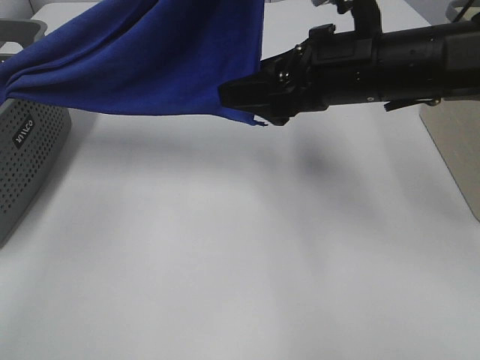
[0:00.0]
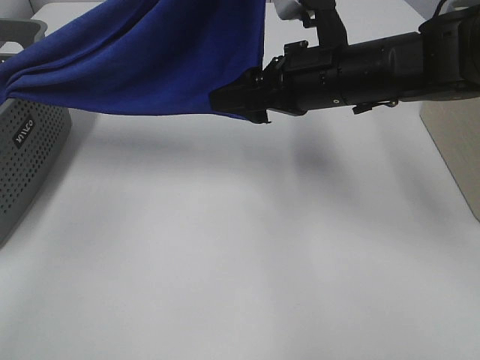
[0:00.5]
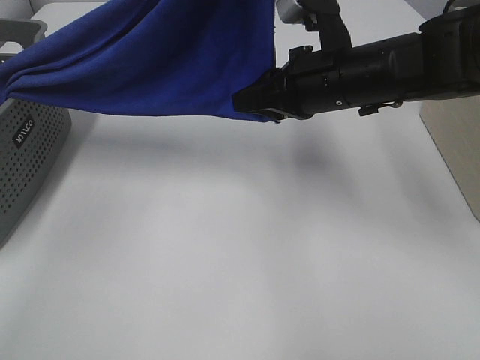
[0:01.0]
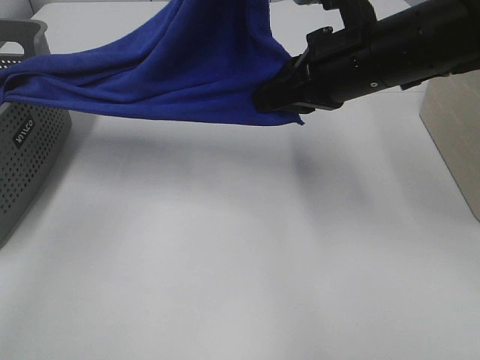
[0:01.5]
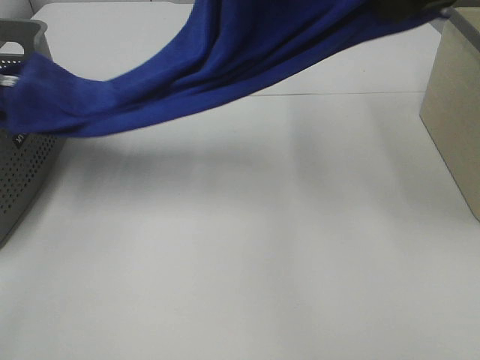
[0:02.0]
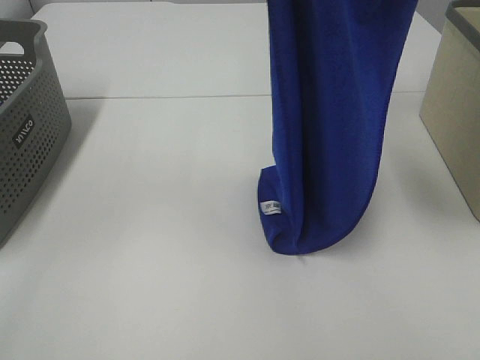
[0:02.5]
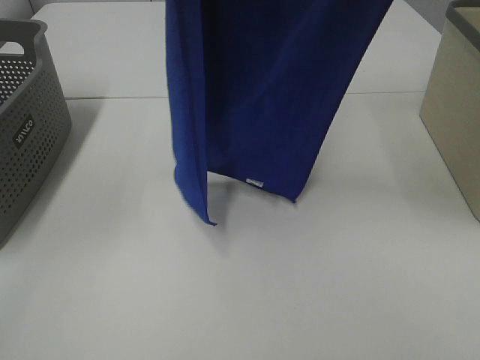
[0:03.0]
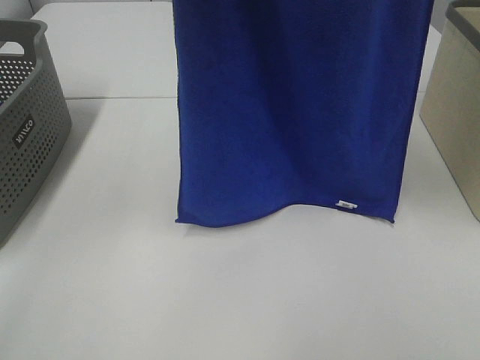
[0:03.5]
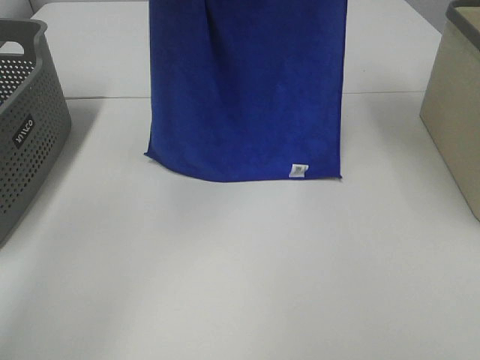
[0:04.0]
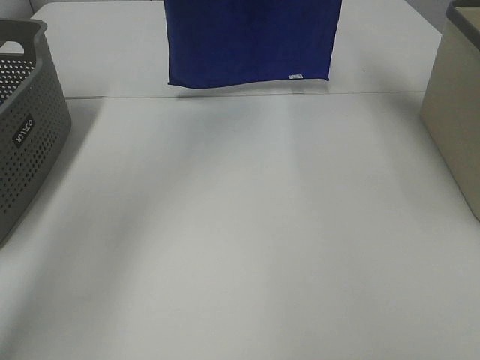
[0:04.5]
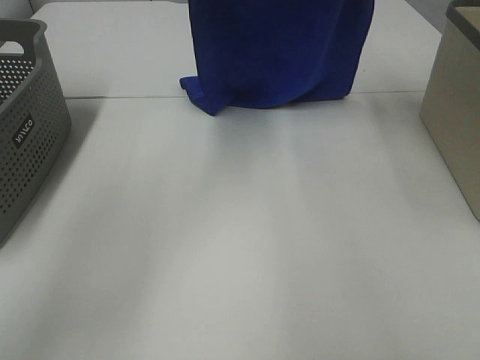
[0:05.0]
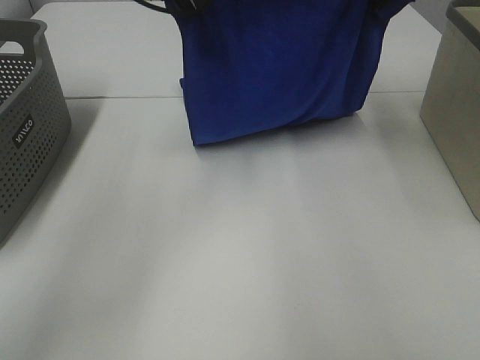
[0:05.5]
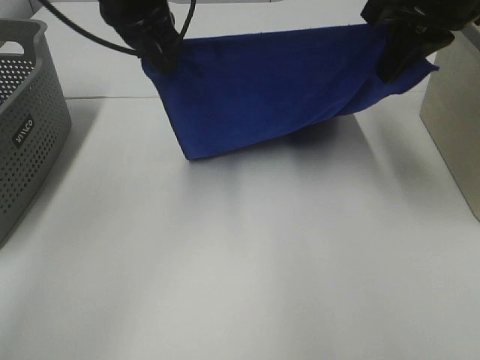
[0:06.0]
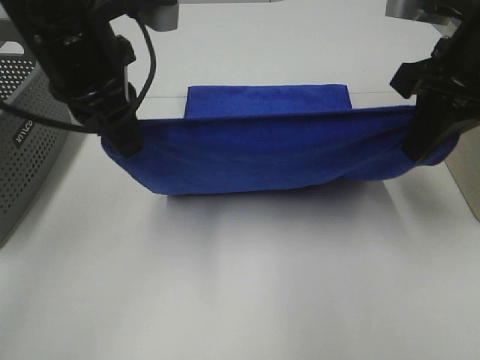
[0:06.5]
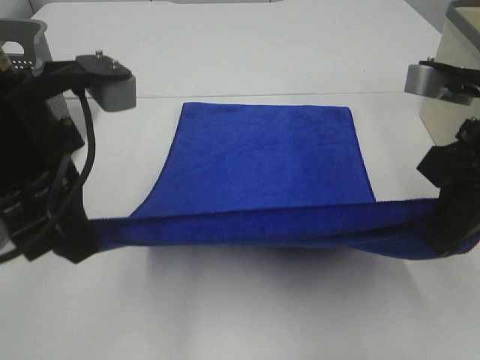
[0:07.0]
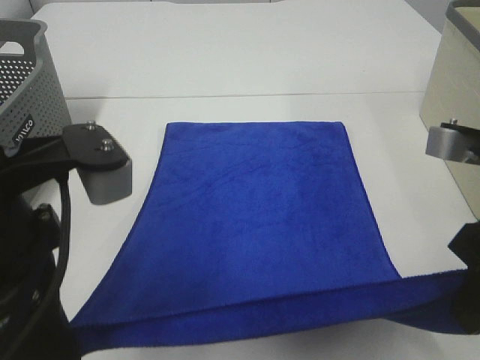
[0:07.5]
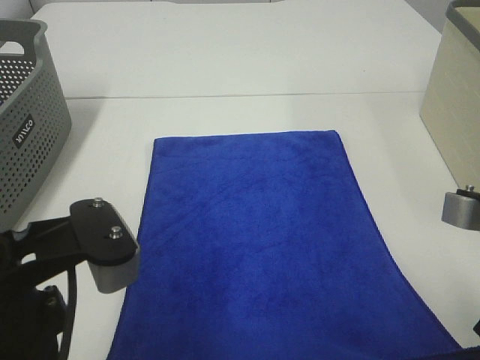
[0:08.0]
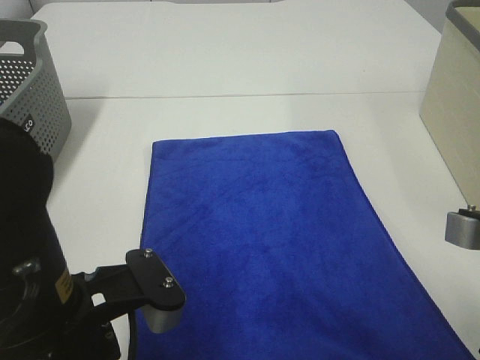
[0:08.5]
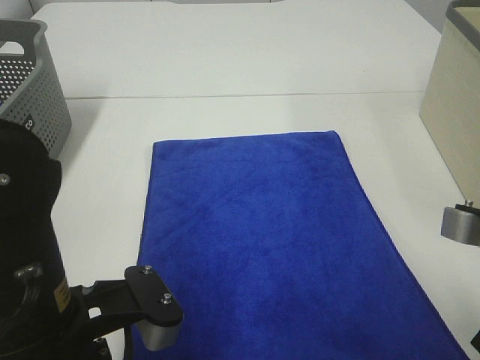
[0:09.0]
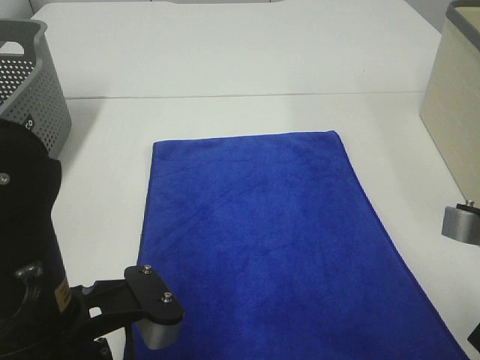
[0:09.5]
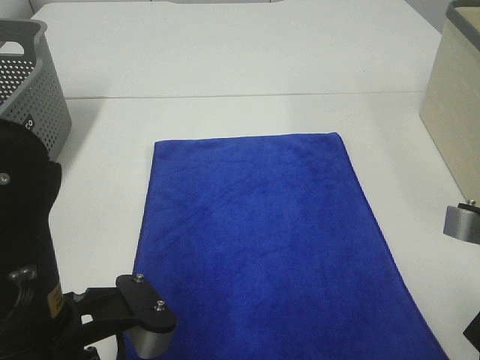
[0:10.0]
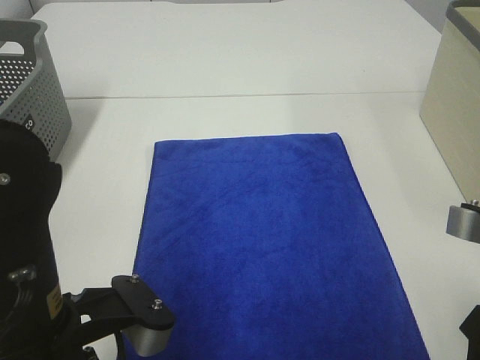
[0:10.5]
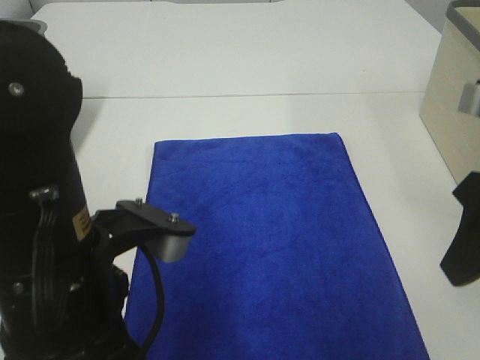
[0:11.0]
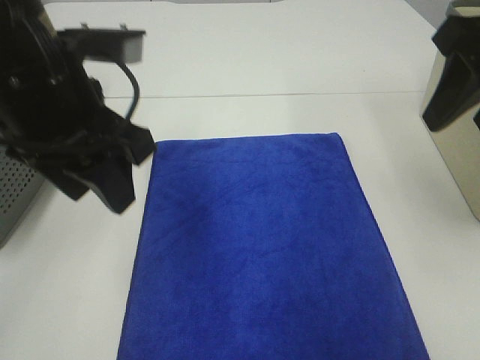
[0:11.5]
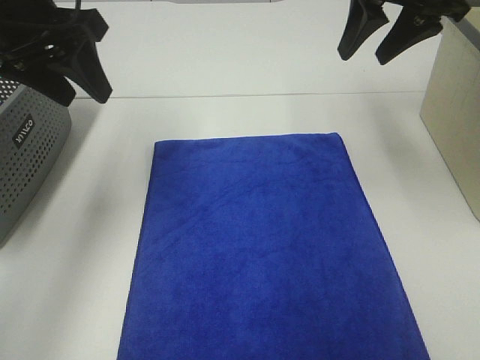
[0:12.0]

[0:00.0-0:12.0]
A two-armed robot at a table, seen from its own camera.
Task of the whole recording: Remove the towel and place it.
Step, 0:00.5 to 0:05.5: Left hand: spread the blue towel flat on the table.
Step, 0:00.5 to 0:05.5: Right hand: spread the blue towel flat on the table.
0:00.0 to 0:02.0: The left gripper moves upward, some 5 cm, while the right gripper goes roughly 15 cm upward, and closes its fingers.
0:02.0 to 0:04.0: The right gripper travels forward and upward by roughly 15 cm. Meanwhile the left gripper travels forward and to the left by roughly 15 cm.
0:04.0 to 0:06.0: Both grippers move downward, about 15 cm.
0:06.0 to 0:08.0: The right gripper heads backward and downward, covering some 25 cm. Meanwhile the left gripper travels backward by some 25 cm.
0:08.0 to 0:10.0: The right gripper opens, while the left gripper goes some 5 cm downward.
0:10.0 to 0:12.0: The right gripper moves forward, some 30 cm, while the left gripper travels forward and upward by about 25 cm, and opens up.

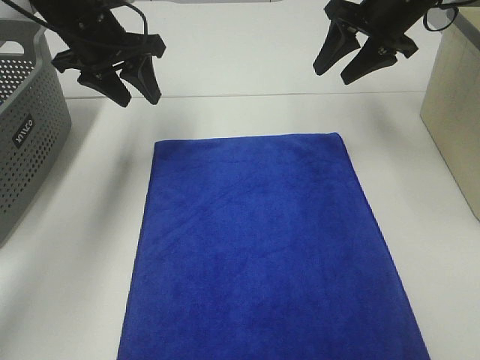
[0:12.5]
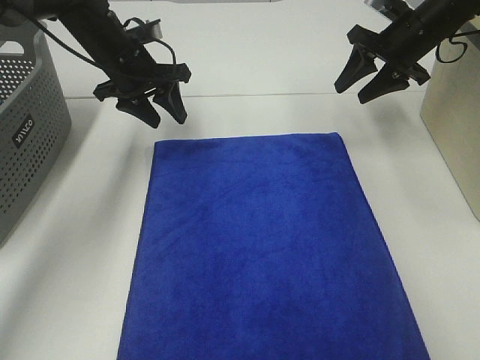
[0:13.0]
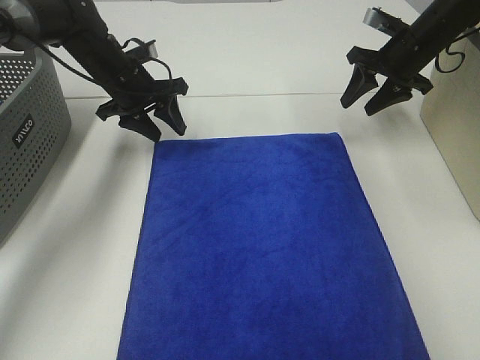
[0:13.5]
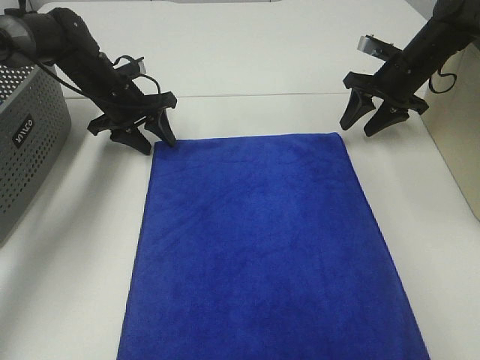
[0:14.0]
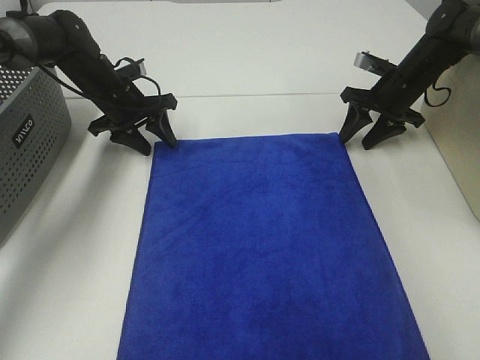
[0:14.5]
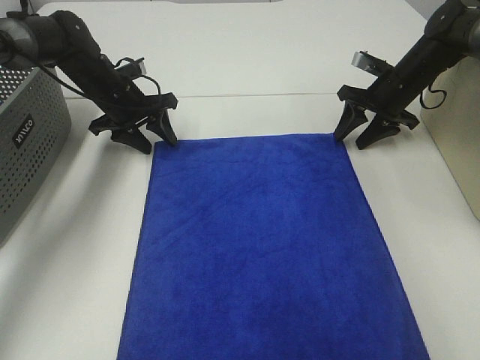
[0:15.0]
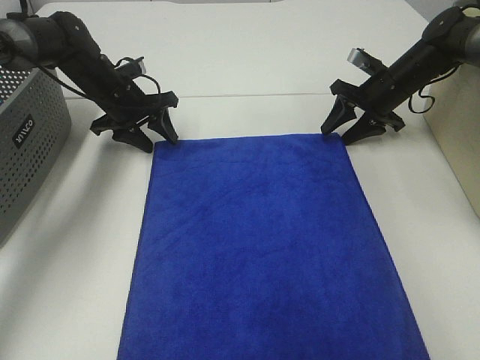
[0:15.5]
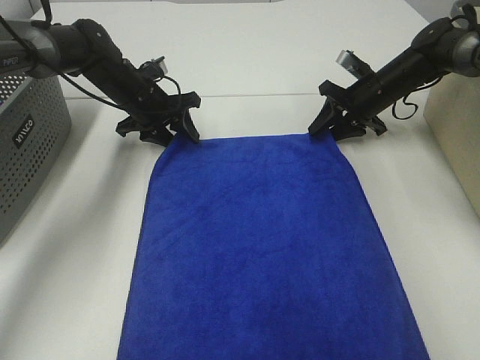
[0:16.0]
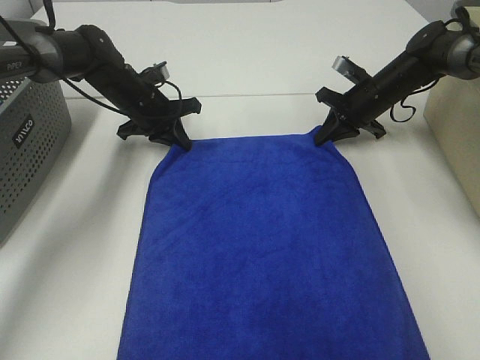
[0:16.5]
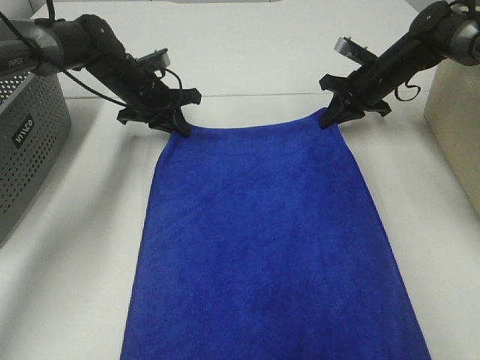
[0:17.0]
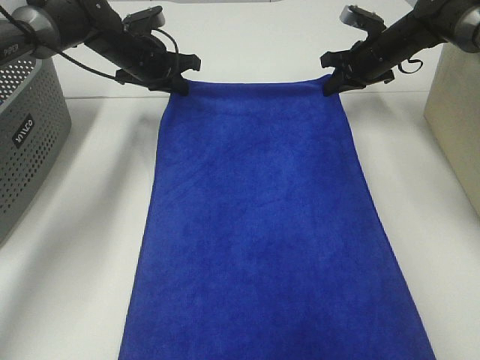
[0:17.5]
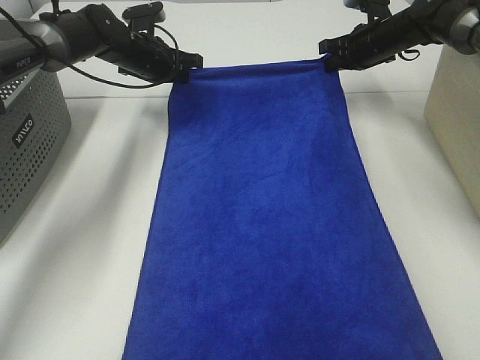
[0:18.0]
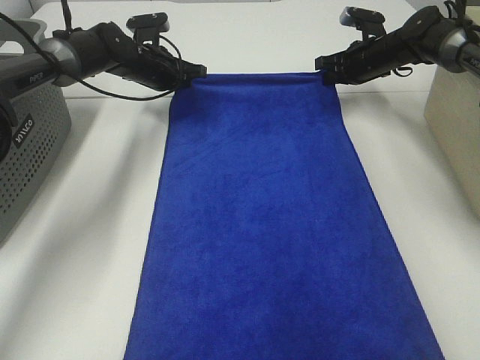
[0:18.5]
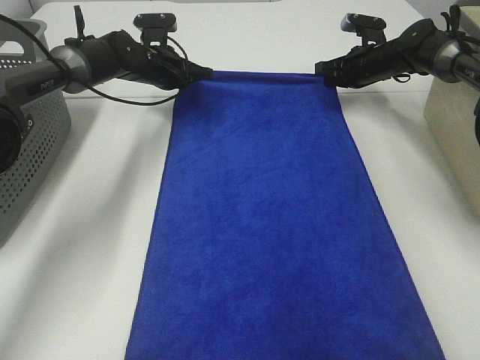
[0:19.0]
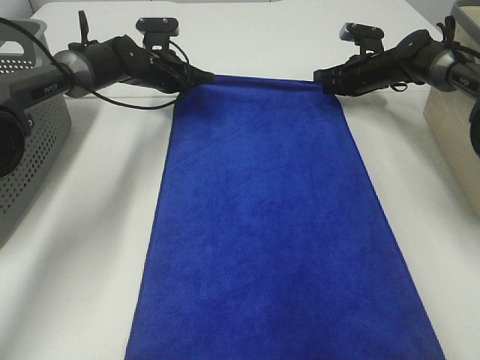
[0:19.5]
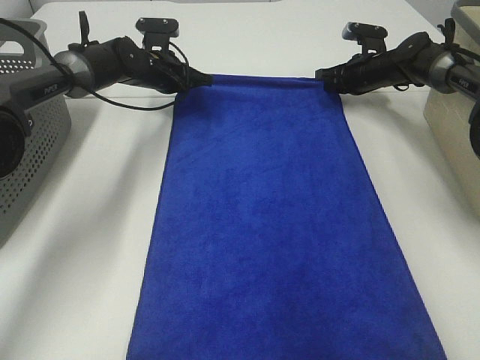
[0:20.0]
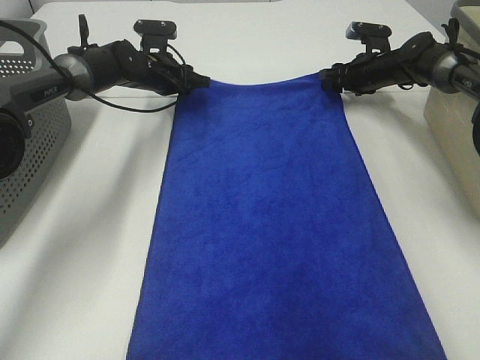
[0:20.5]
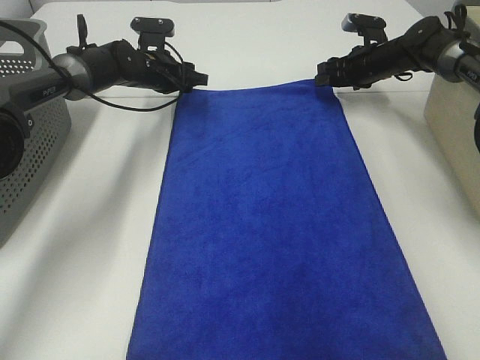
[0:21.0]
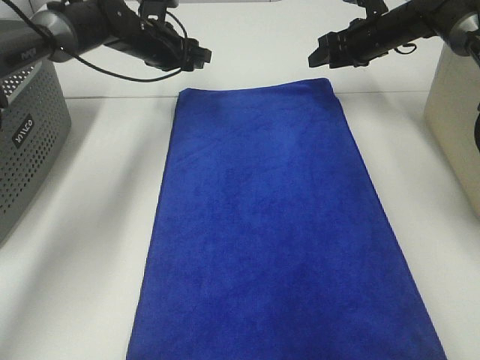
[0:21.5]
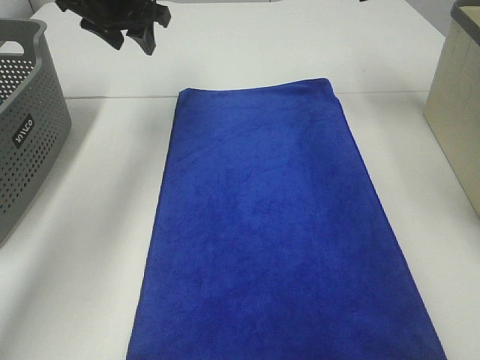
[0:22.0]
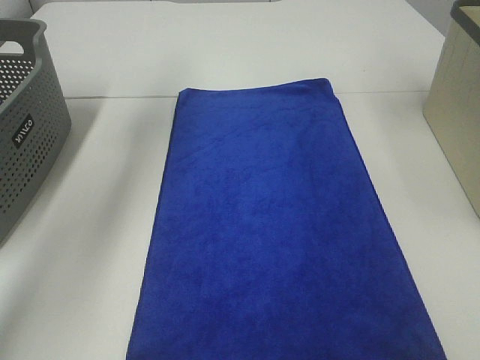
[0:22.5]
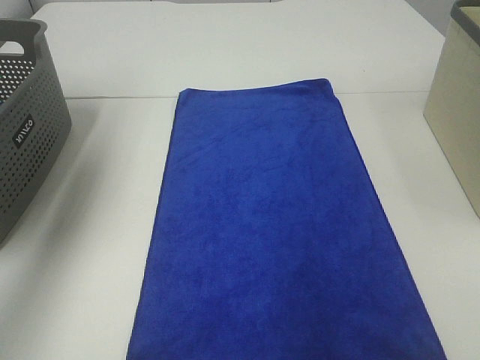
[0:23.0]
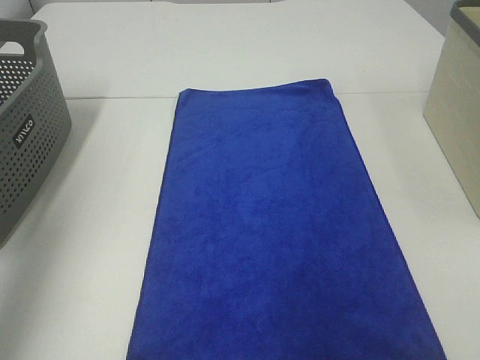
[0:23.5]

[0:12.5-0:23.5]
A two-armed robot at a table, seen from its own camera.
Task of the whole recording: Remove the towel and place it.
0:12.5 to 0:14.5: The right gripper moves downward and to the right, some 15 cm; the left gripper shifts roughly 15 cm downward and forward.
0:14.5 to 0:16.0: The grippers make only small movements.
0:16.0 to 0:18.0: The left gripper shifts approximately 5 cm forward, and closes. Meanwhile the right gripper shifts some 10 cm upward and forward, and closes.
0:18.0 to 0:20.0: The right gripper shifts approximately 5 cm downward.
0:20.0 to 0:21.5: The two grippers go some 5 cm upward. The left gripper opens up. The right gripper opens.
0:21.5 to 0:23.5: The right gripper goes some 50 cm backward and upward. Meanwhile the left gripper heads backward, upward and to the left, covering roughly 50 cm.

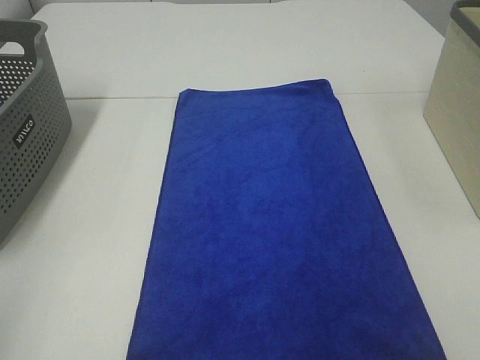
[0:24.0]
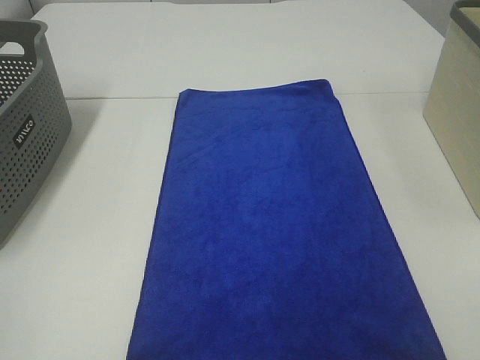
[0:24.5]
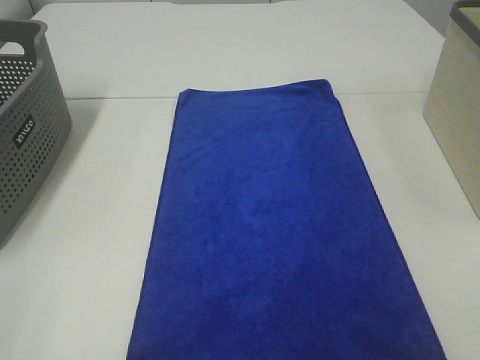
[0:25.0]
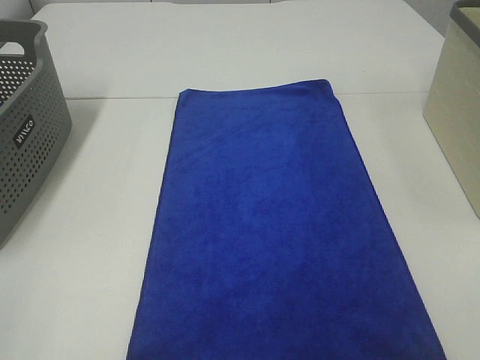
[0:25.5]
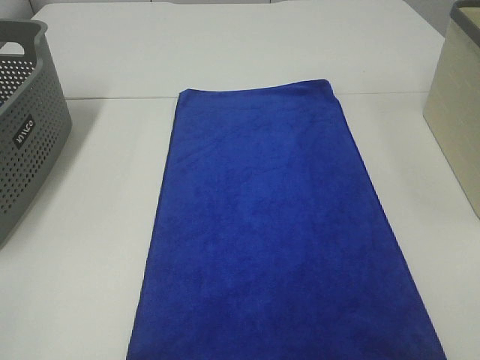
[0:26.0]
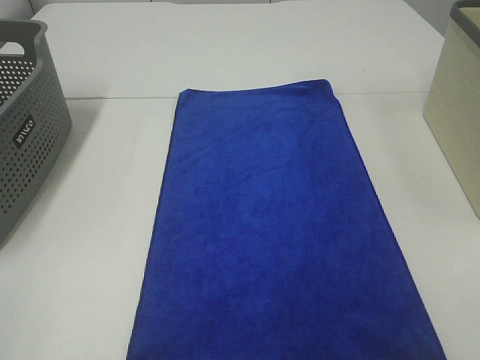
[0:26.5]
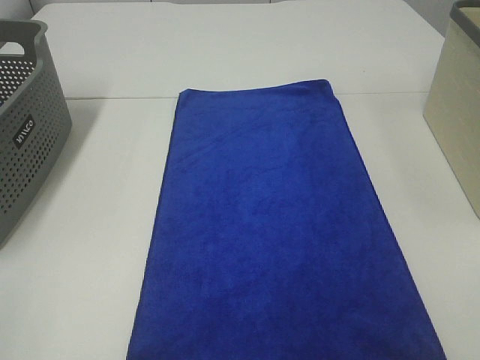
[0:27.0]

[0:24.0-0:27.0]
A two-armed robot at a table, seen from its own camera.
Task of the whole recording: Remove the towel and place it.
0:25.5 to 0:27.0: The two grippers keep their place.
